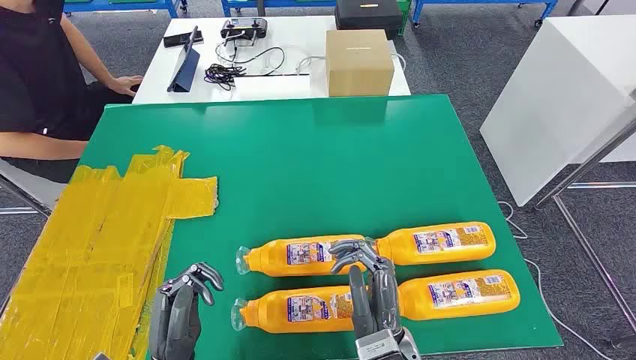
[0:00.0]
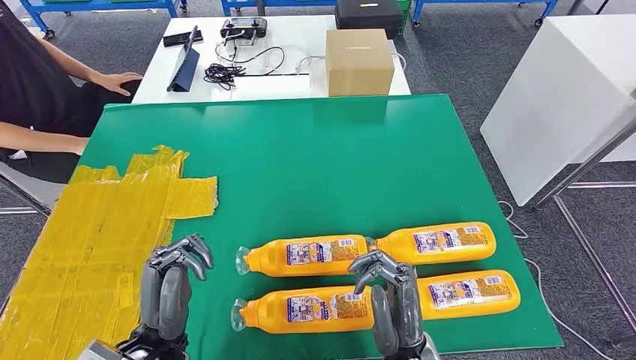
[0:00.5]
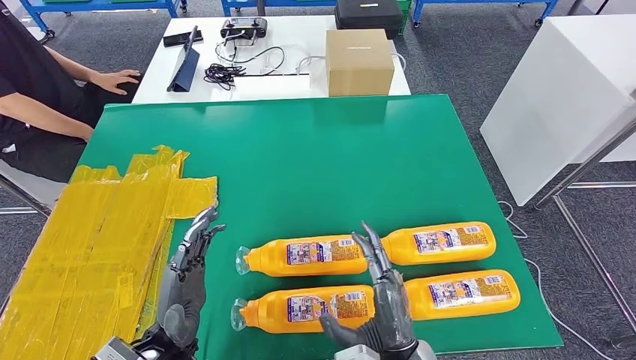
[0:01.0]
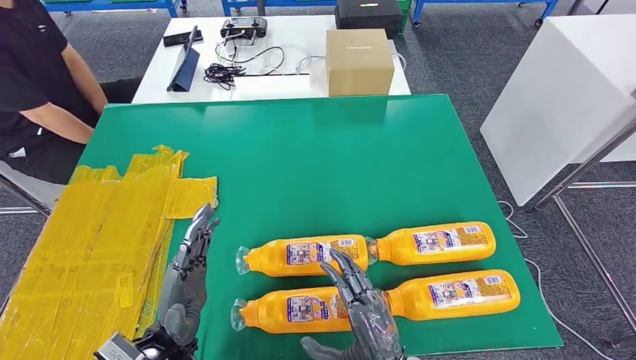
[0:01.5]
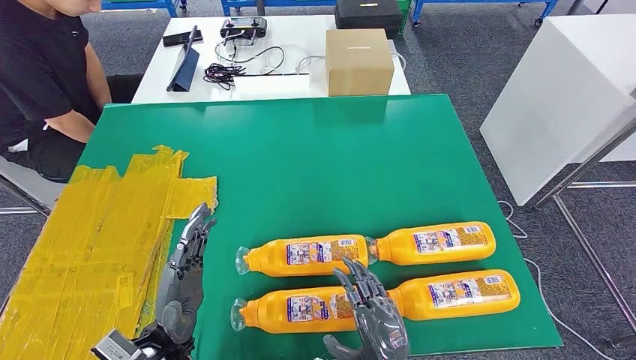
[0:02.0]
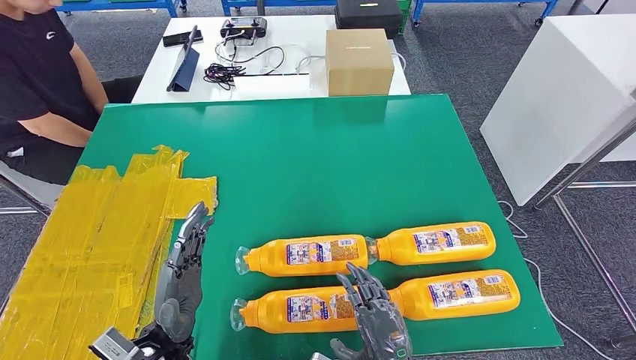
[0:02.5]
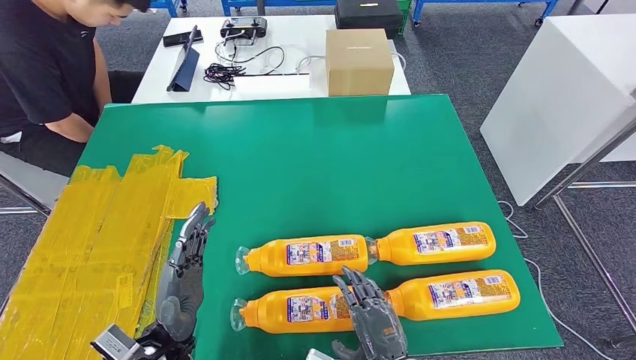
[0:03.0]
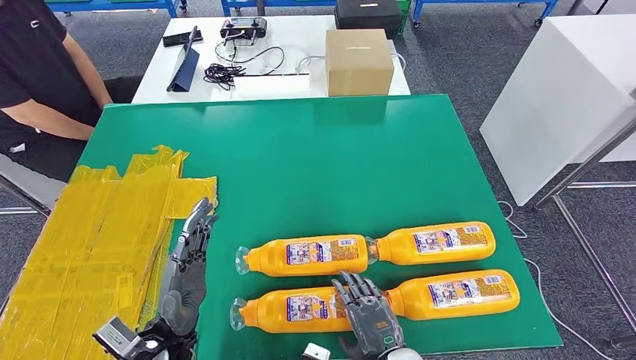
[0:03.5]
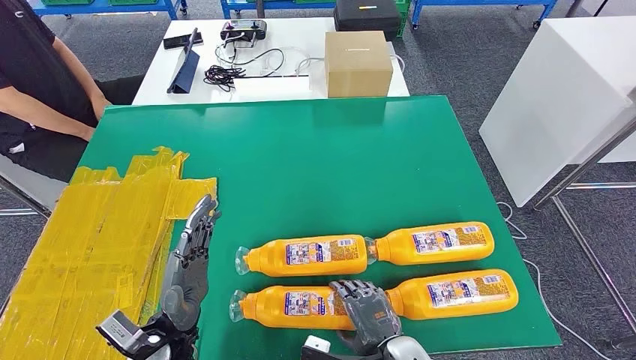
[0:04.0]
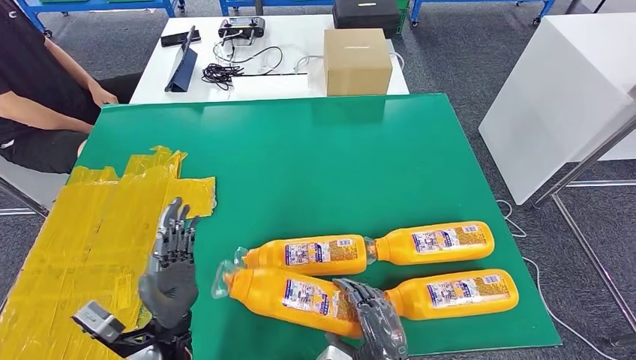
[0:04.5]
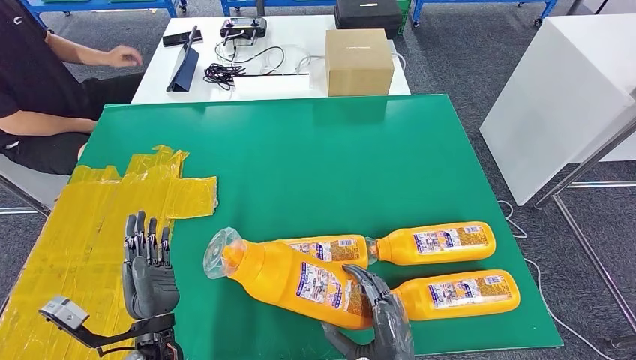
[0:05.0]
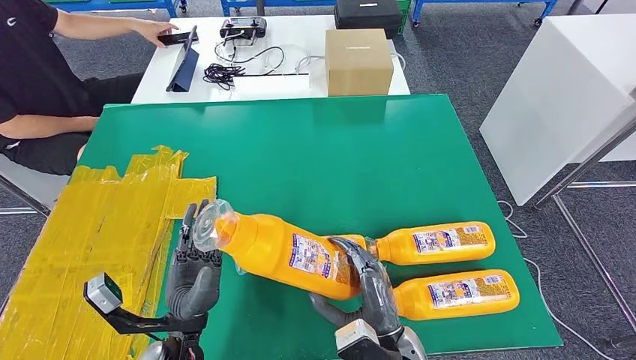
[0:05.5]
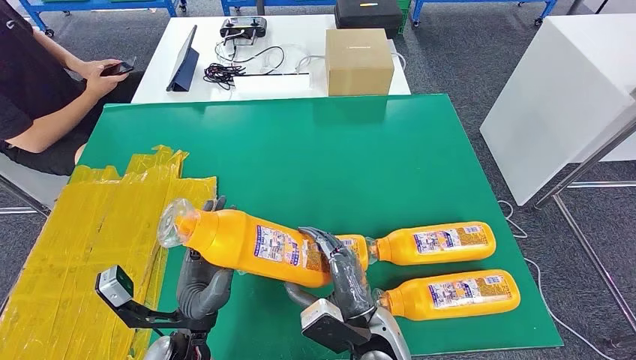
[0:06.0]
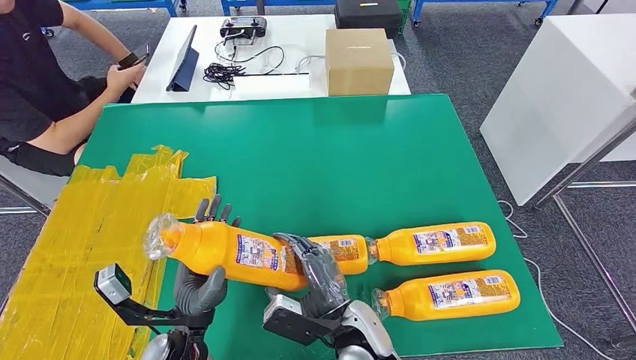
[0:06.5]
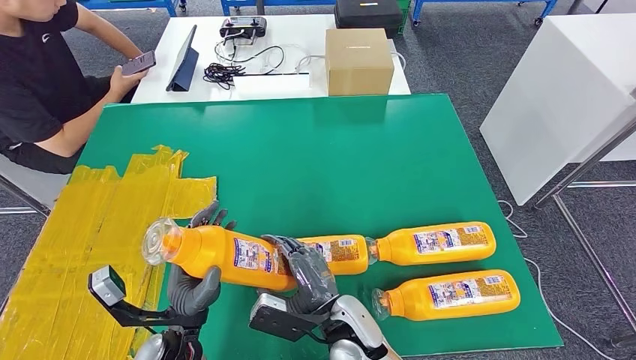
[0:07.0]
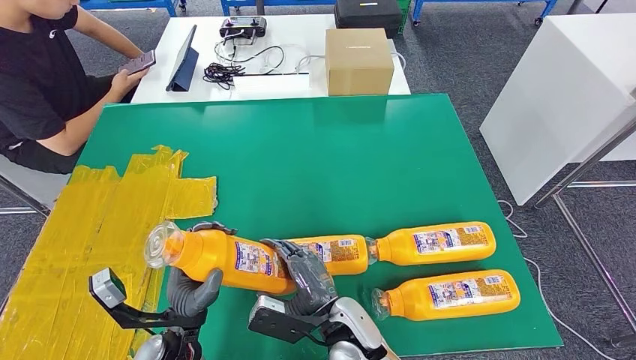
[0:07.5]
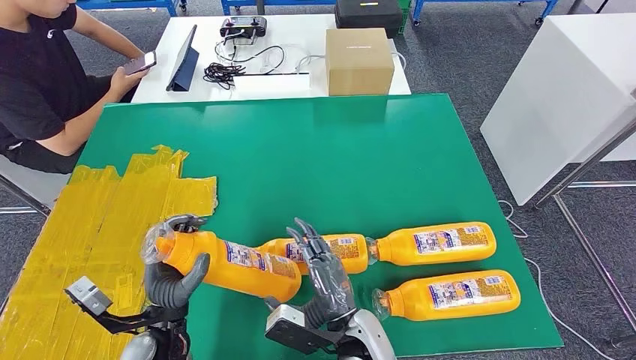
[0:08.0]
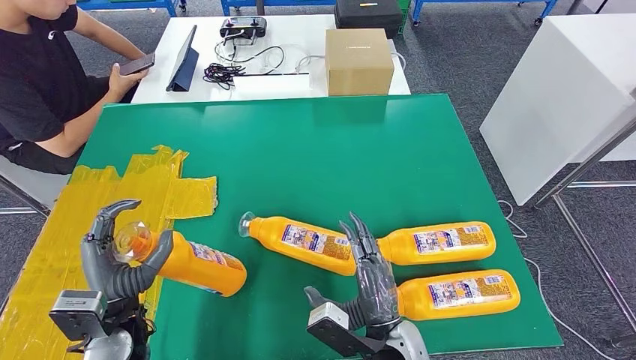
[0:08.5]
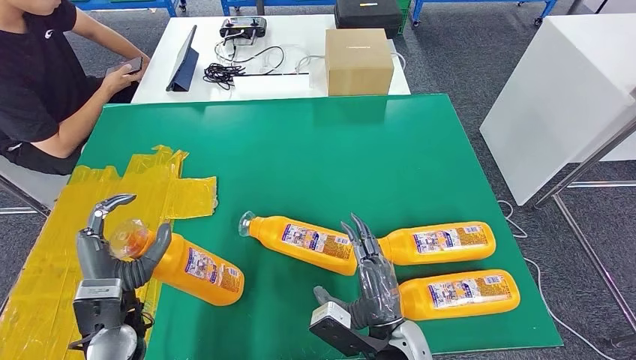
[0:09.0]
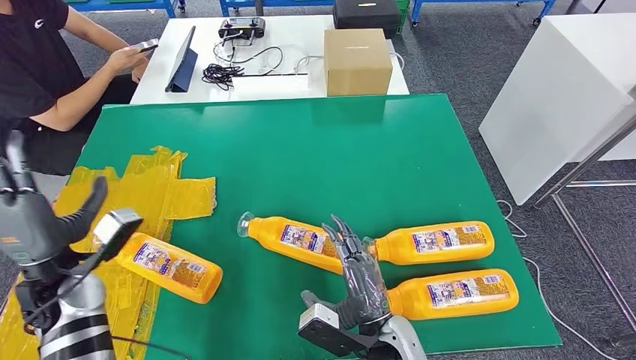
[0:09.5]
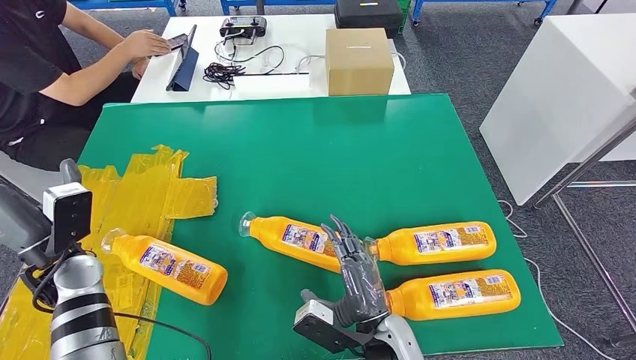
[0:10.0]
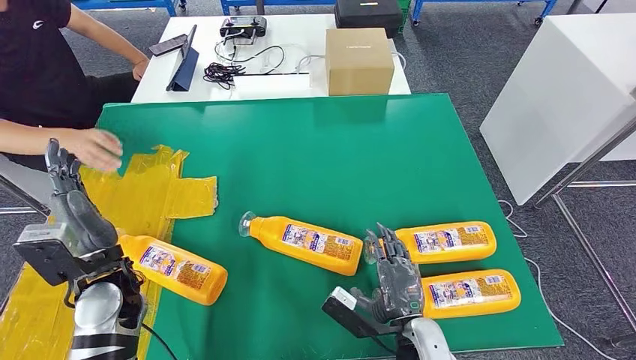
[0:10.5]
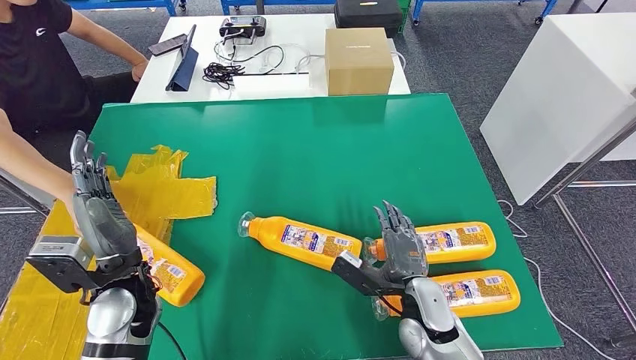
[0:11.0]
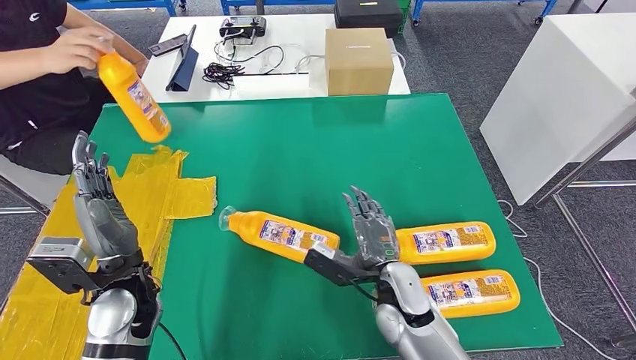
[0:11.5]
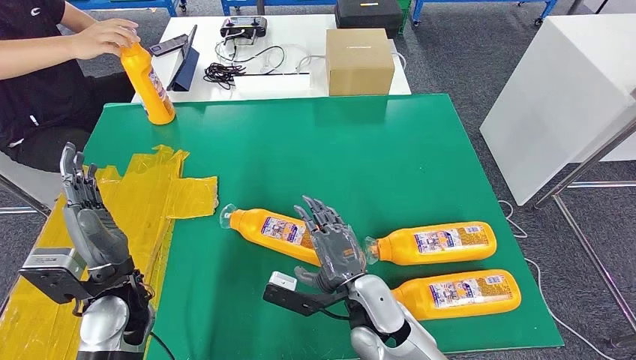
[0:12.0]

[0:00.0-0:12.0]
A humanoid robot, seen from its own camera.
Step, 0:00.0 to 0:06.5: Take the bottle from the table.
Step, 0:07.0 to 0:09.5: Flip the bottle to face forward.
0:02.0 to 0:04.0: The right hand shifts by approximately 5 cm.
0:04.0 to 0:06.0: The right hand goes roughly 5 cm to the left.

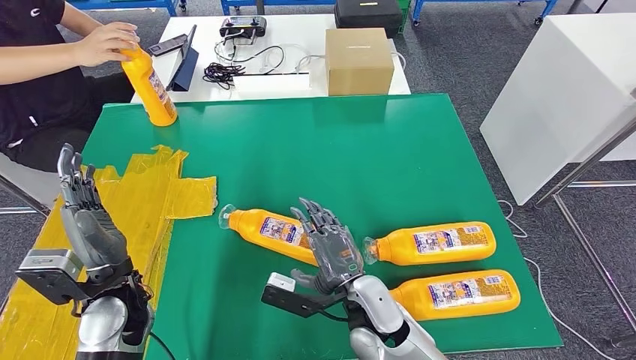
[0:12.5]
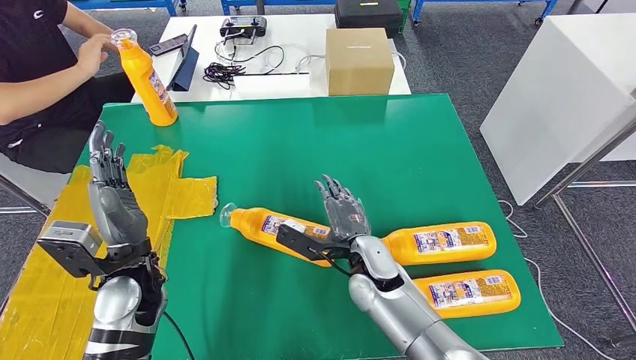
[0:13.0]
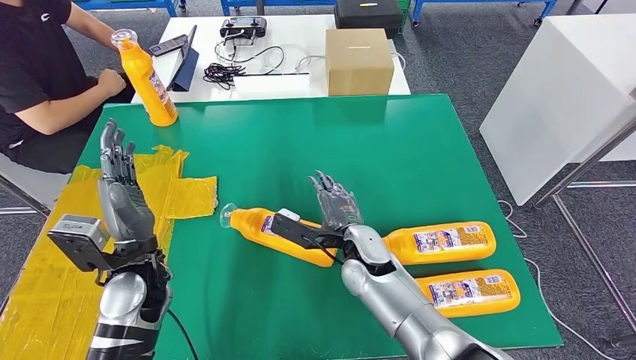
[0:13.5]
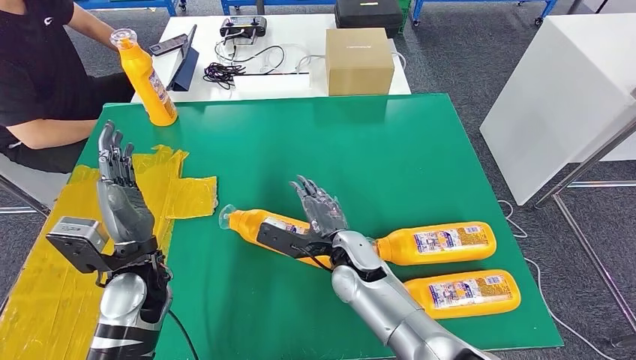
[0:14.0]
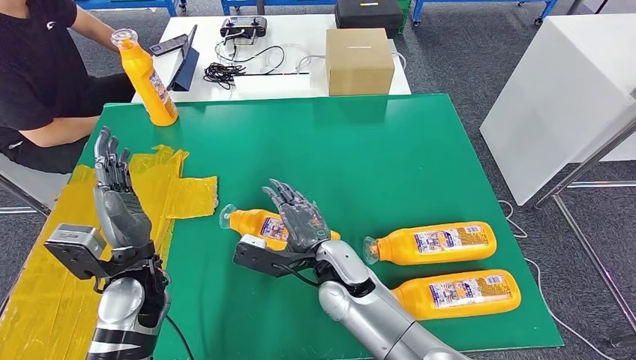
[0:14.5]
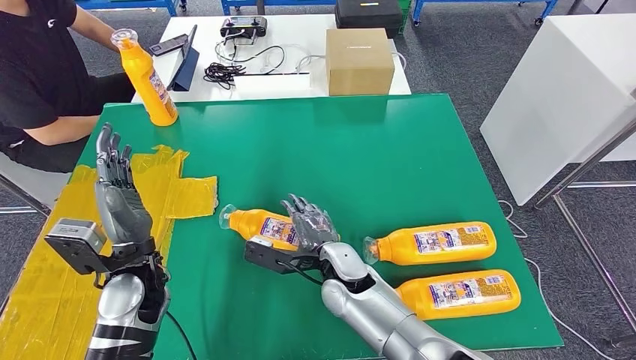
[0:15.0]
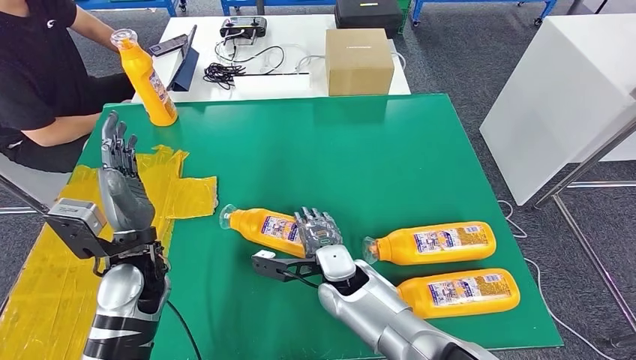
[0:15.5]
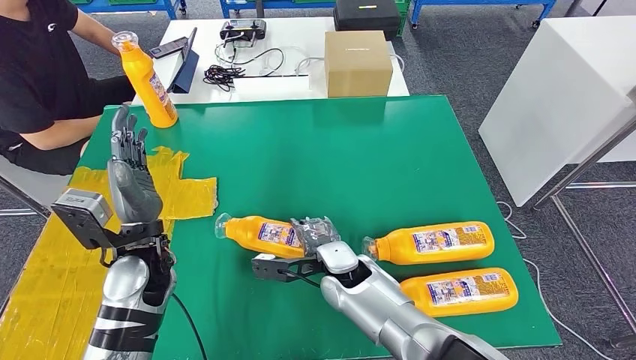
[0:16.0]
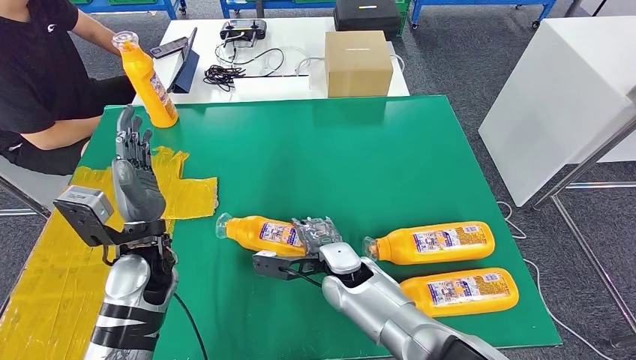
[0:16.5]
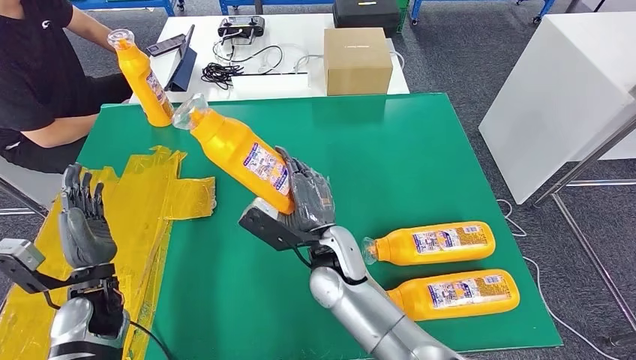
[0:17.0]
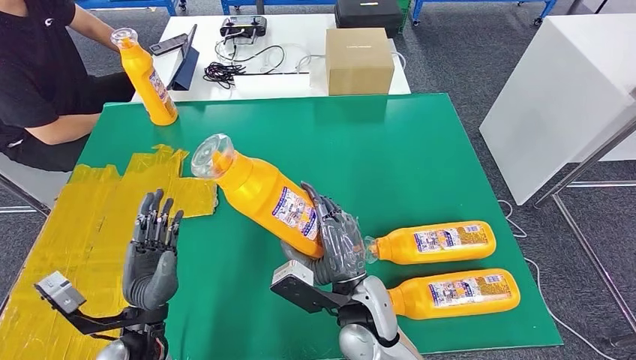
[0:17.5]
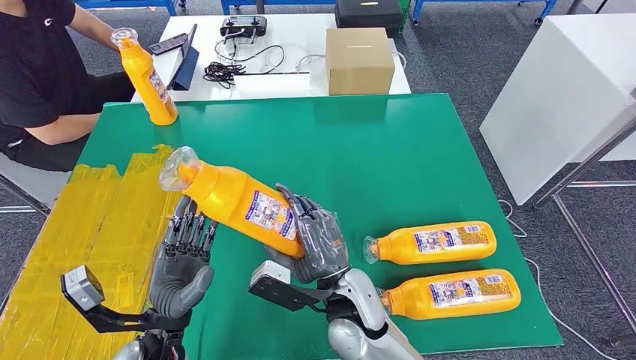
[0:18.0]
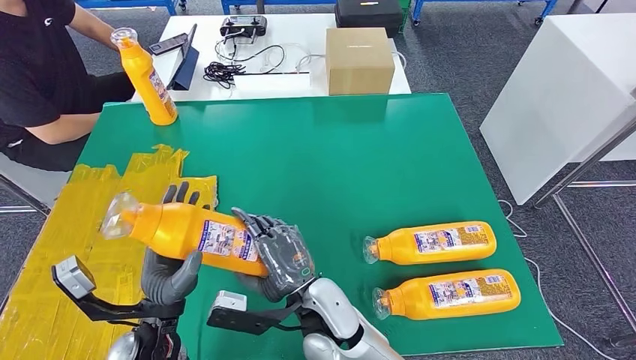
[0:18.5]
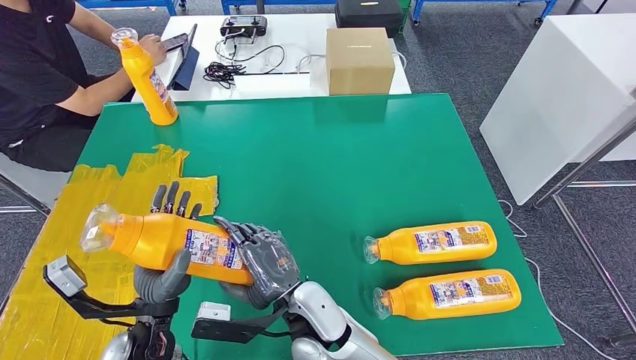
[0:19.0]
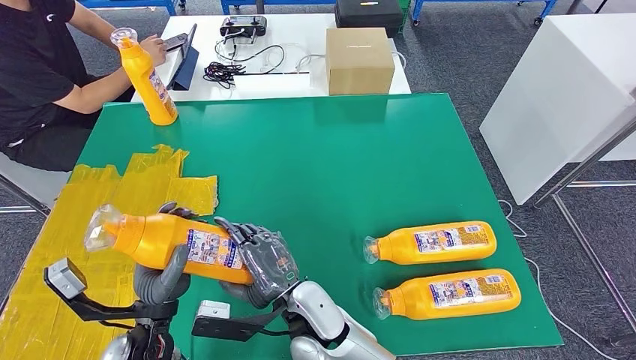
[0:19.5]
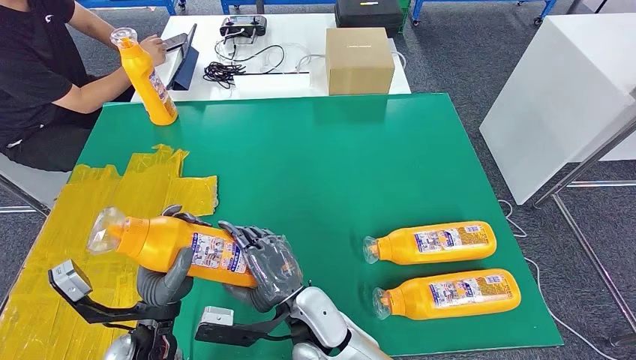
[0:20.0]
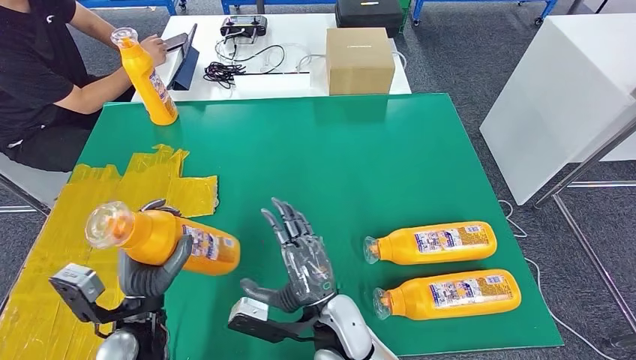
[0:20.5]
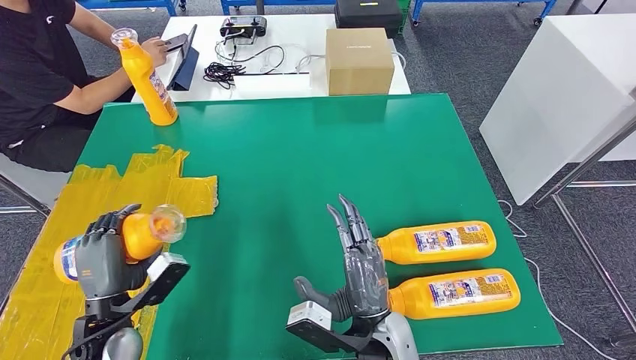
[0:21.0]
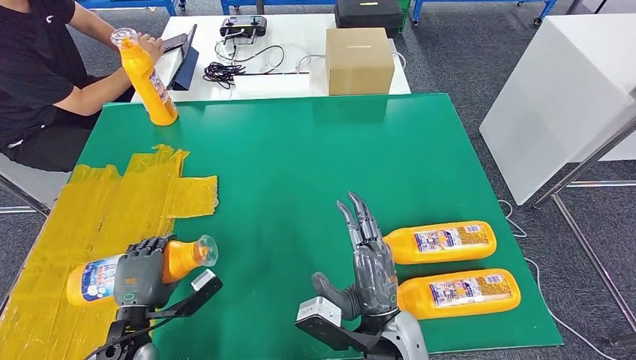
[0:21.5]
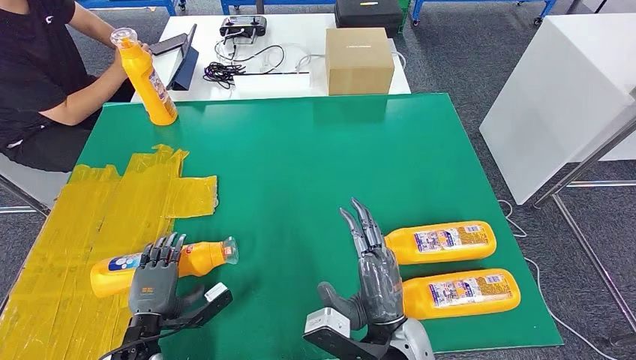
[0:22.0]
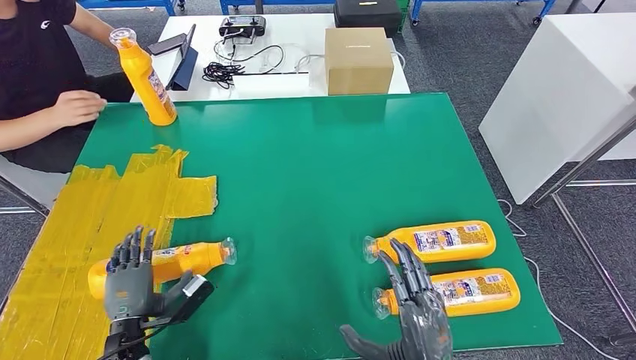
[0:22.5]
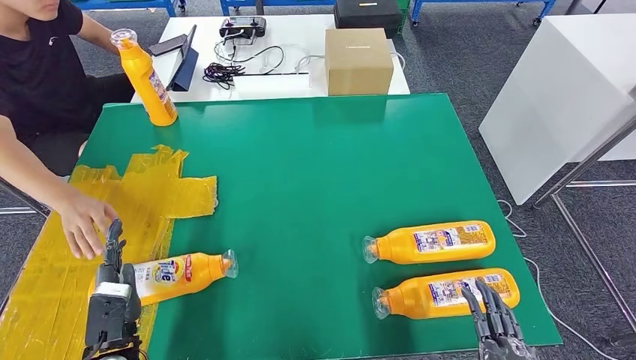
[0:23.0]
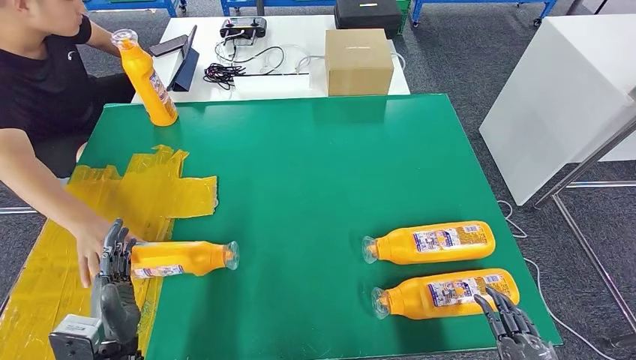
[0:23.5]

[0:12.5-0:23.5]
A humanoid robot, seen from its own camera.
Step, 0:12.5 to 0:18.5: Pick up the bottle from the table.
Step, 0:19.0 to 0:22.5: Flip the bottle to face forward.
0:12.5 to 0:14.5: The right hand goes some 5 cm forward.
0:18.0 to 0:20.0: The right hand heads to the left, covering about 5 cm.
0:20.0 to 0:21.5: The right hand heads to the right, covering about 10 cm. Meanwhile the left hand goes approximately 10 cm to the left and downward.
0:21.5 to 0:23.5: The left hand moves backward, roughly 5 cm. The right hand moves to the right and backward, approximately 25 cm.
